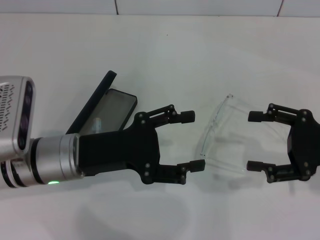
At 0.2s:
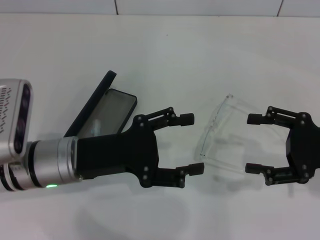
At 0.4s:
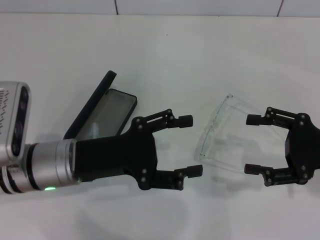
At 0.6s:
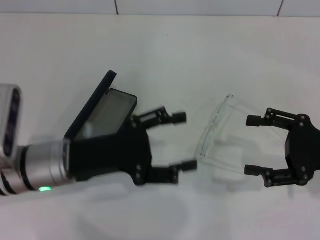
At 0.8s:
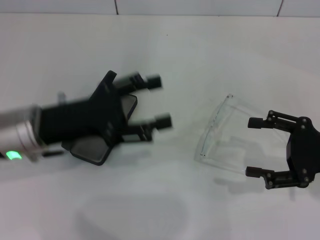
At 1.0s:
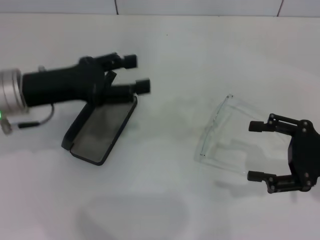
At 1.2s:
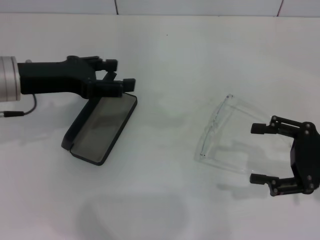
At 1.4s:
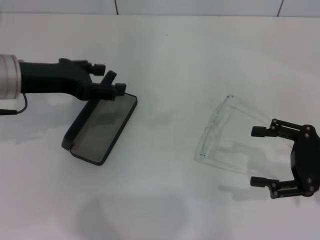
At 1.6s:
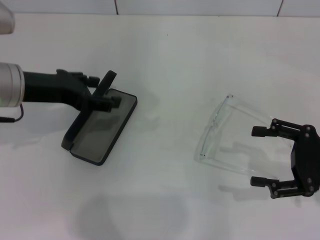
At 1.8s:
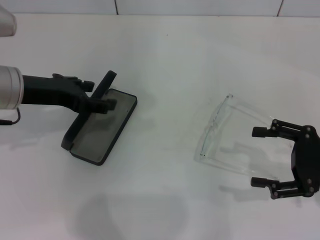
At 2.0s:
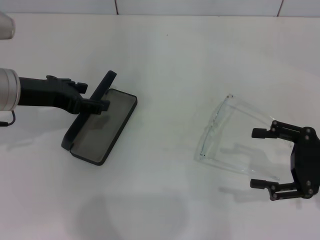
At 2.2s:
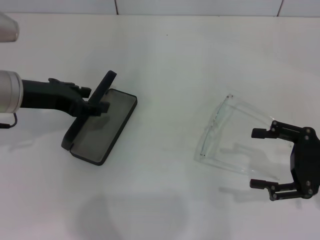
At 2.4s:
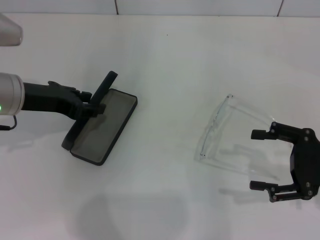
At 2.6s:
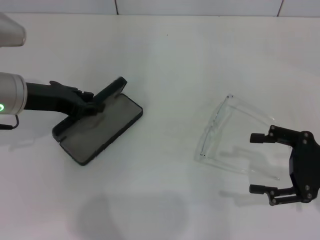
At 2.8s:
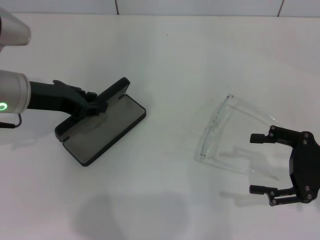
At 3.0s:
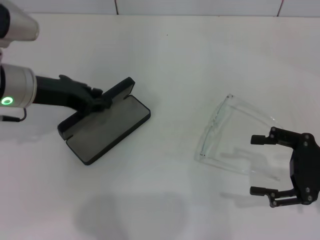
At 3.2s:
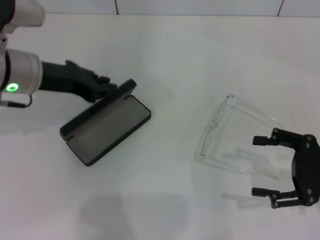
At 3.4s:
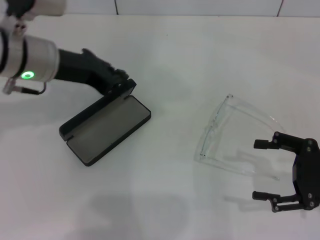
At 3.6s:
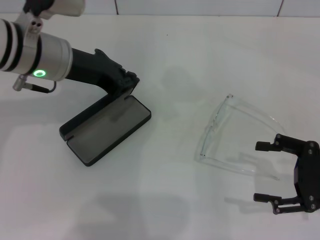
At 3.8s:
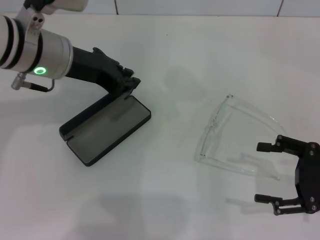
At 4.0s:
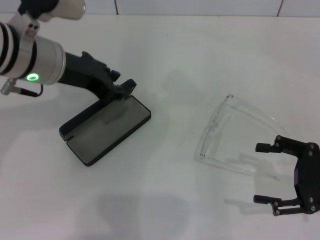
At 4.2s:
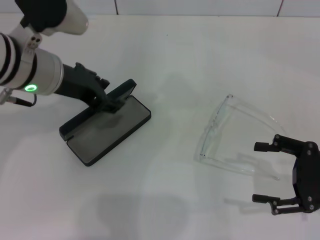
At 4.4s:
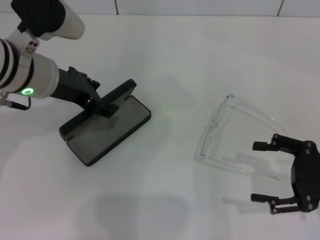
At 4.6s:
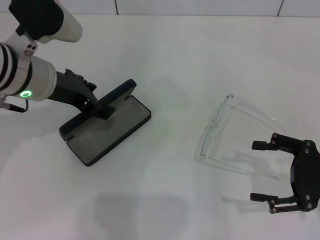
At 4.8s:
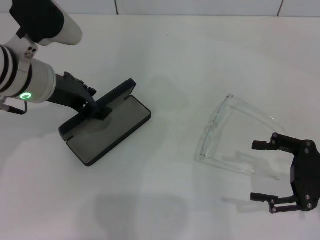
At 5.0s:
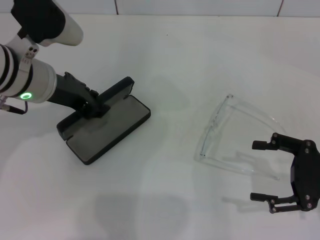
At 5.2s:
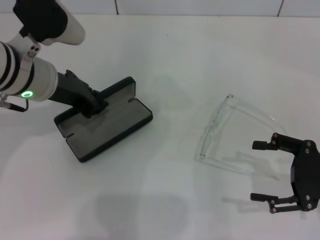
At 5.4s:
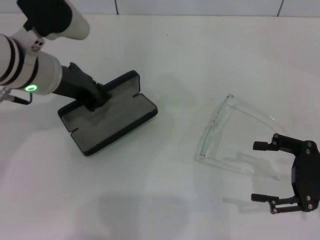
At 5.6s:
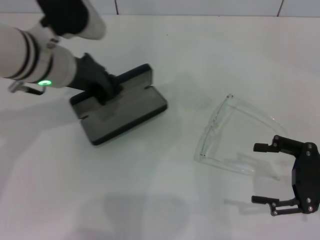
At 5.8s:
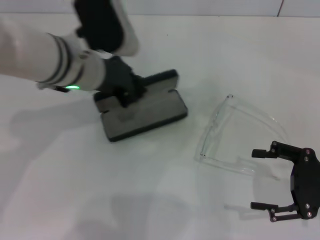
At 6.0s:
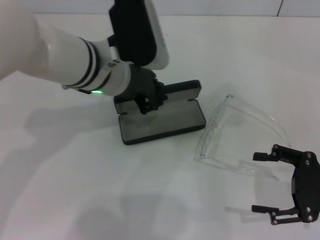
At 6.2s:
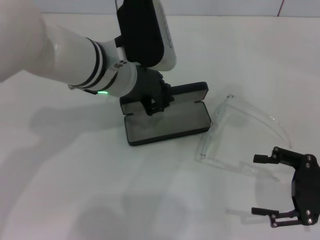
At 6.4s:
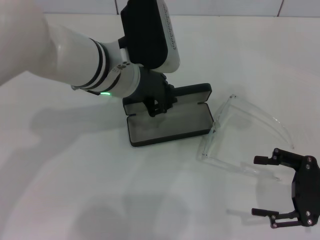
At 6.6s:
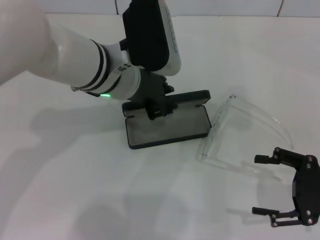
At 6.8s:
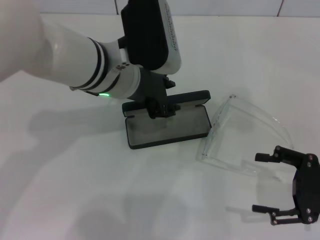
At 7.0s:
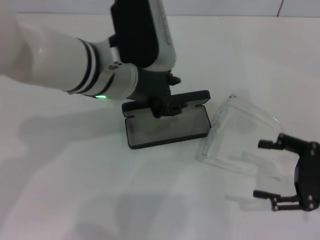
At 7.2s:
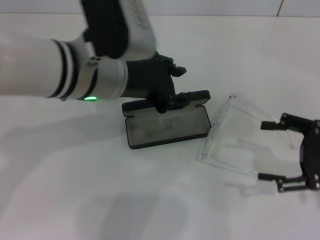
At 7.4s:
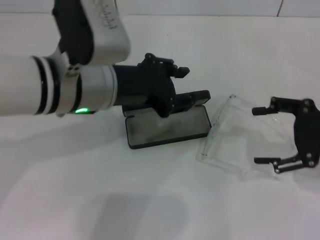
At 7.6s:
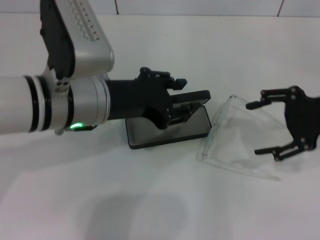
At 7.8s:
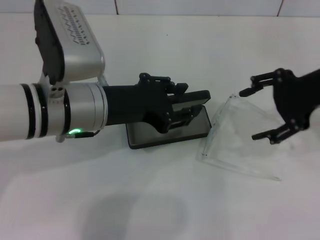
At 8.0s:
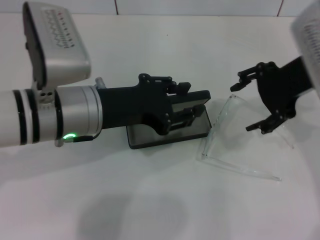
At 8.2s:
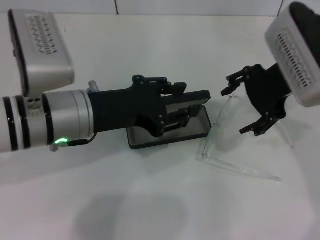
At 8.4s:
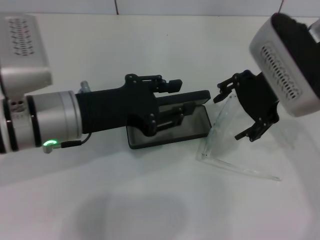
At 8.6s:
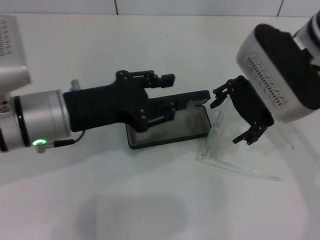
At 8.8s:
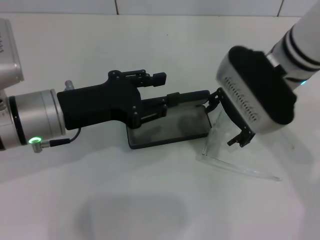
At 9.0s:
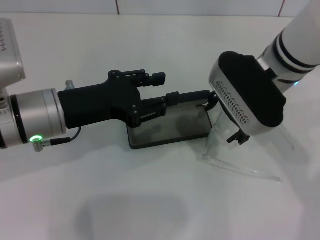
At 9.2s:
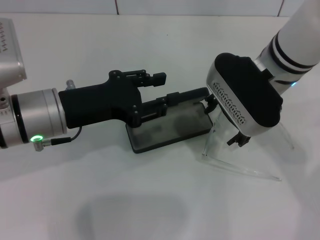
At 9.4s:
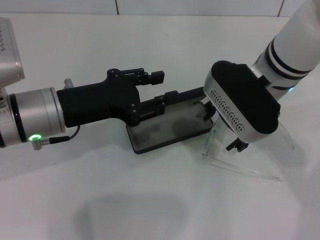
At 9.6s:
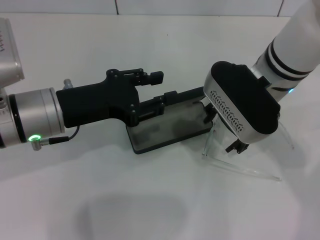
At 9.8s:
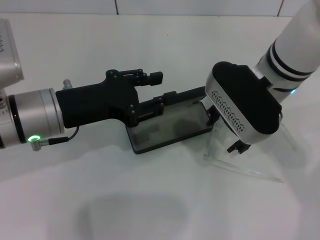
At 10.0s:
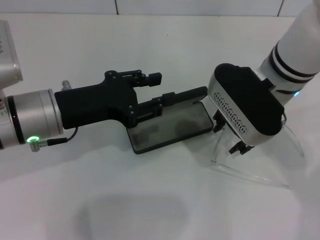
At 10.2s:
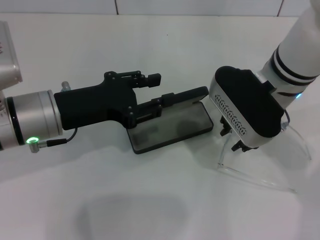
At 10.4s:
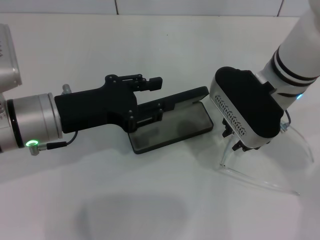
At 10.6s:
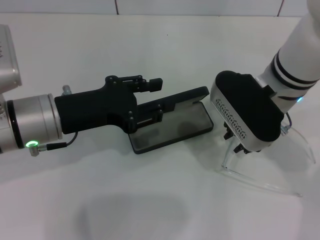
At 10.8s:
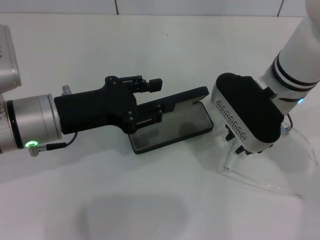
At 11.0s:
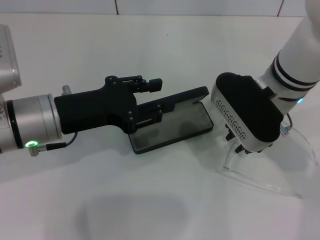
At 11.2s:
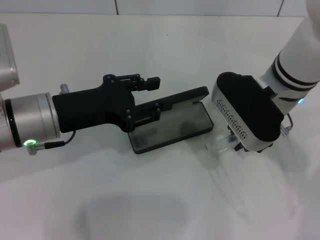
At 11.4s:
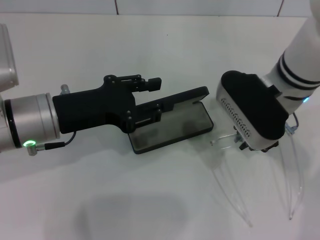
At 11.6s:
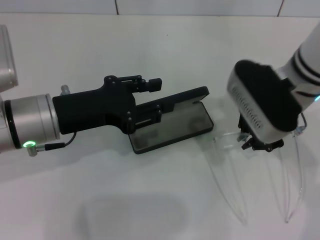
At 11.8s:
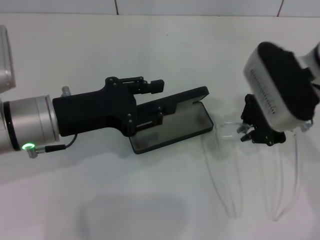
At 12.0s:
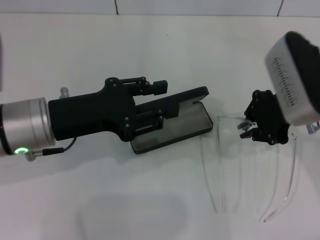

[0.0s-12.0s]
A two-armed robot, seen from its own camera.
Step, 0.0s to 5.2s: Grab the glasses case with your left hand.
Step, 5.4s to 6.8s: Place the glasses case in the center of the table with your left hand.
Step, 7.0s to 11.4s: Grab the eyeglass frame with your right hand.
0.0s to 1.6s: The left gripper goes roughly 10 cm upward, forward and to the left.
1.6s to 3.0s: The left gripper closes up.
3.0s to 4.4s: The left gripper moves approximately 5 cm, and opens up.
4.4s to 6.0s: The left gripper moves to the right, approximately 10 cm, and closes its fingers.
6.0s to 7.6s: The left gripper is displaced backward by some 5 cm, and opens, while the right gripper goes some 15 cm upward and forward.
7.6s to 9.0s: The left gripper travels to the left by about 5 cm, while the right gripper shifts roughly 15 cm to the left.
9.0s to 10.4s: The right gripper closes its fingers.
10.4s to 12.0s: The right gripper is displaced to the right by approximately 5 cm.

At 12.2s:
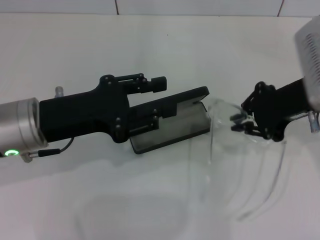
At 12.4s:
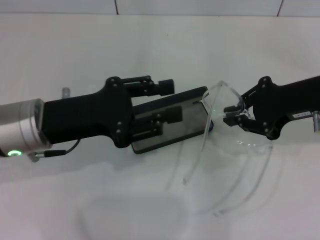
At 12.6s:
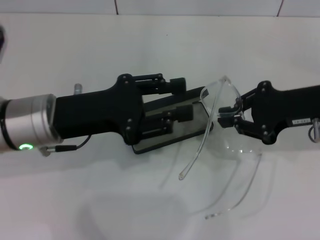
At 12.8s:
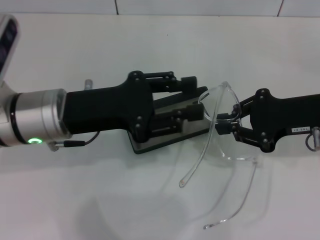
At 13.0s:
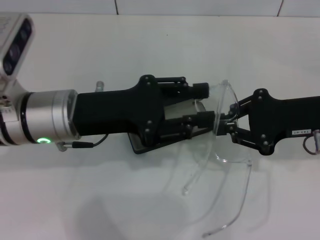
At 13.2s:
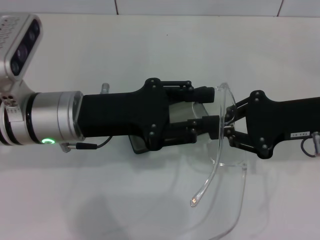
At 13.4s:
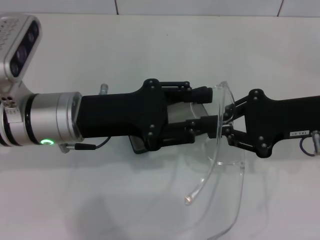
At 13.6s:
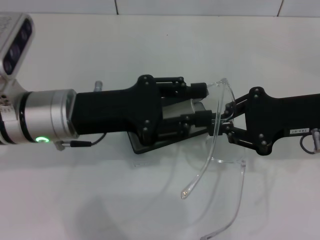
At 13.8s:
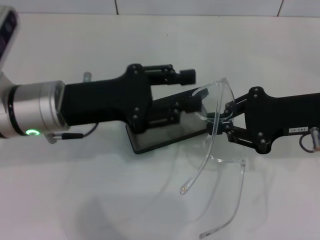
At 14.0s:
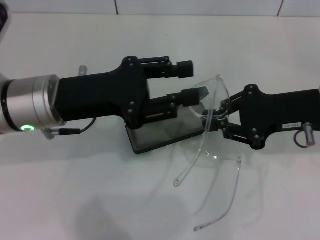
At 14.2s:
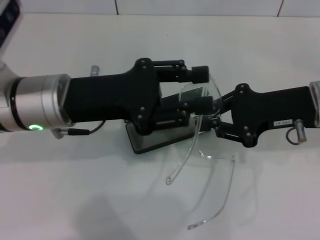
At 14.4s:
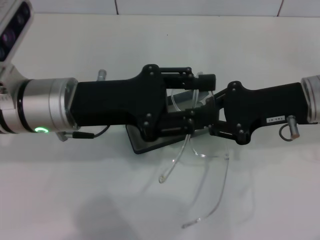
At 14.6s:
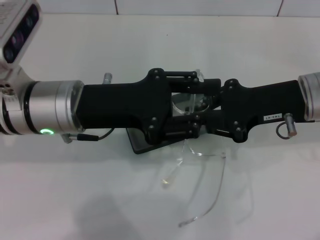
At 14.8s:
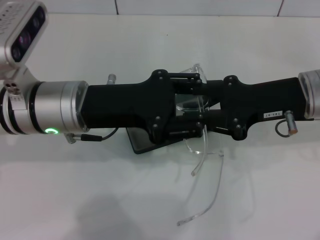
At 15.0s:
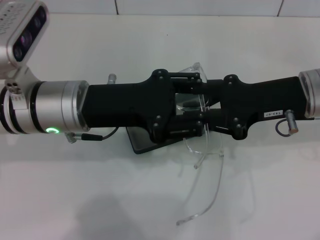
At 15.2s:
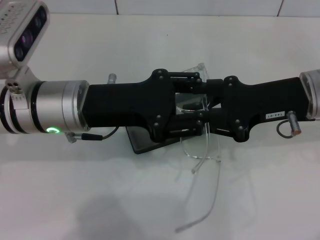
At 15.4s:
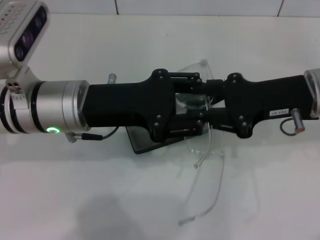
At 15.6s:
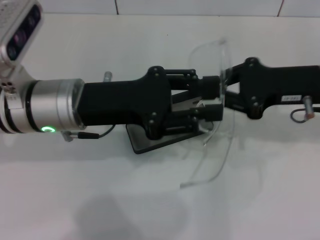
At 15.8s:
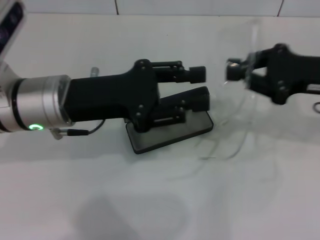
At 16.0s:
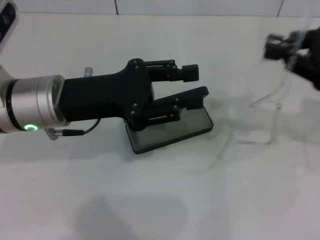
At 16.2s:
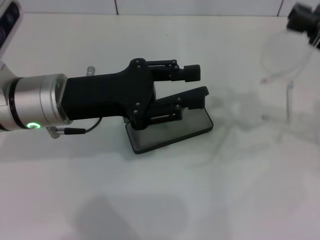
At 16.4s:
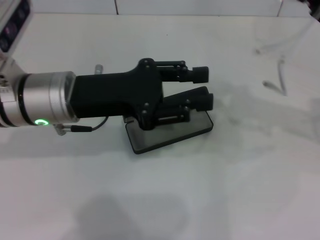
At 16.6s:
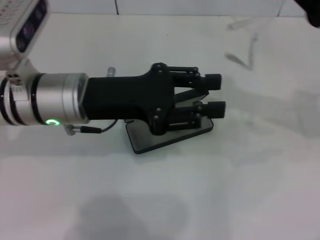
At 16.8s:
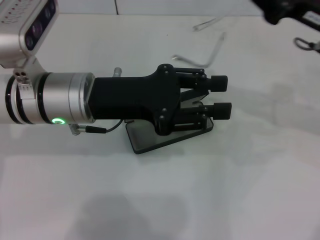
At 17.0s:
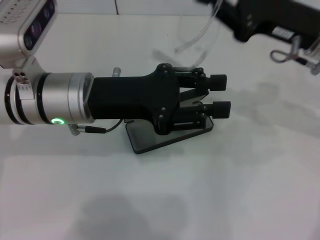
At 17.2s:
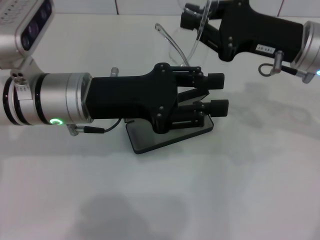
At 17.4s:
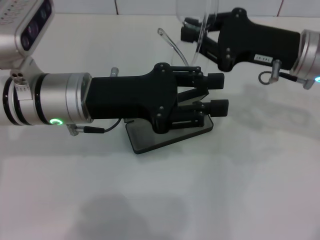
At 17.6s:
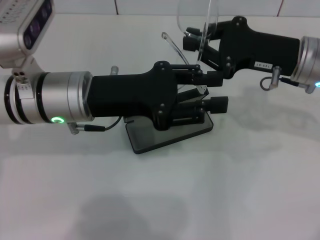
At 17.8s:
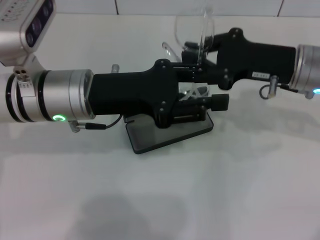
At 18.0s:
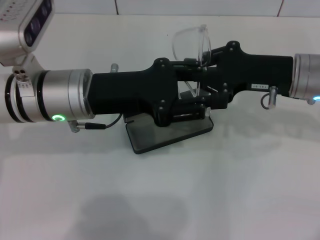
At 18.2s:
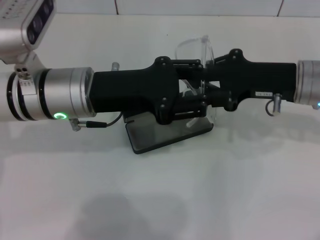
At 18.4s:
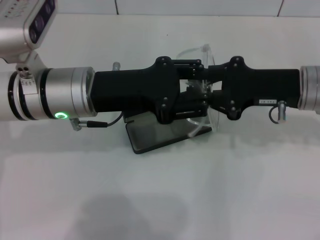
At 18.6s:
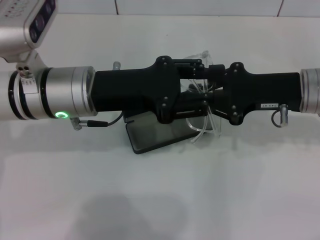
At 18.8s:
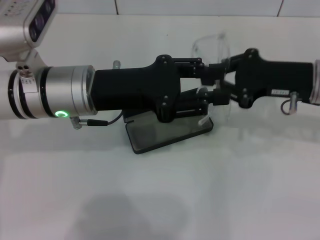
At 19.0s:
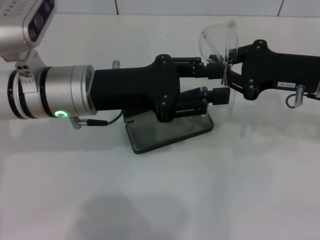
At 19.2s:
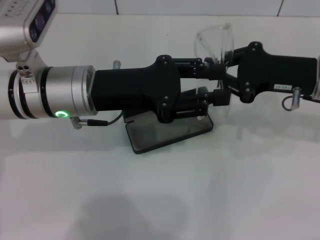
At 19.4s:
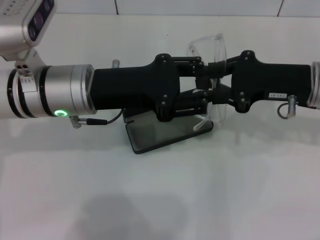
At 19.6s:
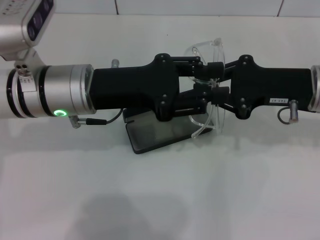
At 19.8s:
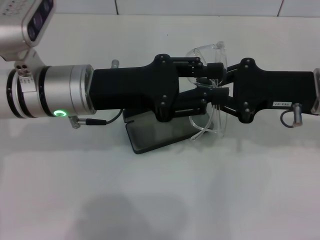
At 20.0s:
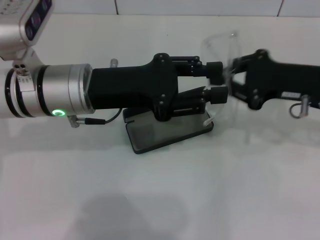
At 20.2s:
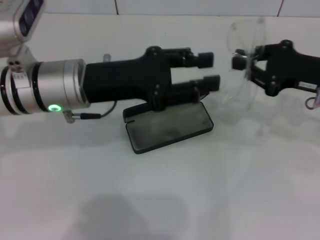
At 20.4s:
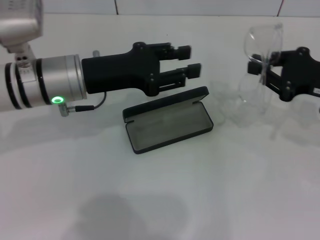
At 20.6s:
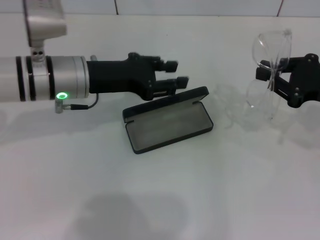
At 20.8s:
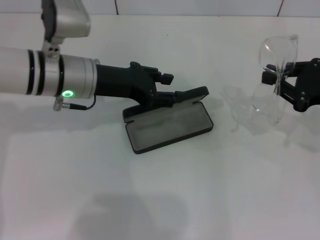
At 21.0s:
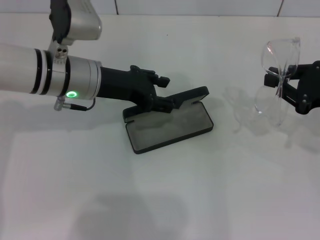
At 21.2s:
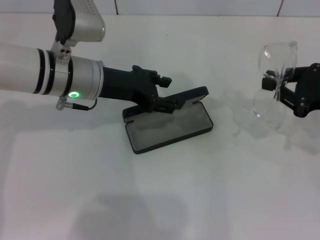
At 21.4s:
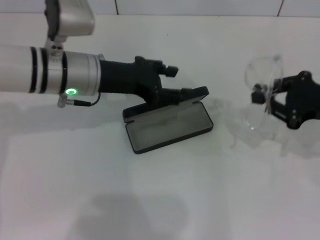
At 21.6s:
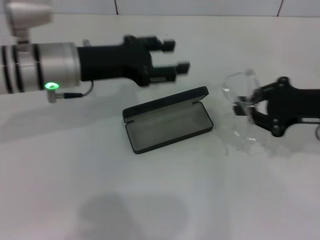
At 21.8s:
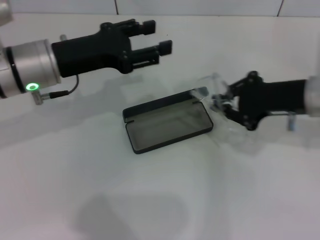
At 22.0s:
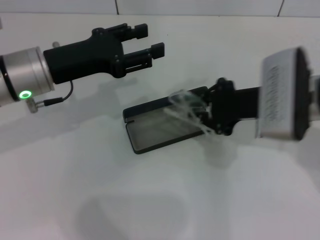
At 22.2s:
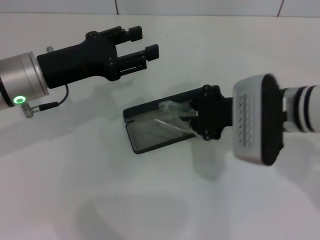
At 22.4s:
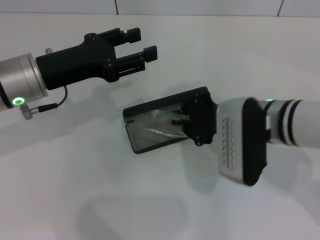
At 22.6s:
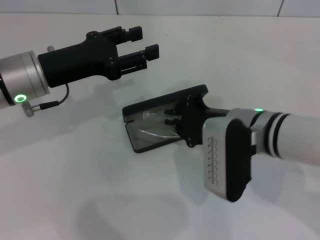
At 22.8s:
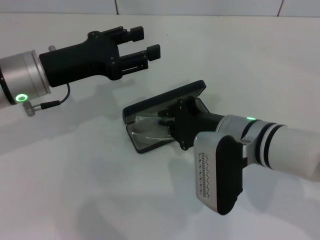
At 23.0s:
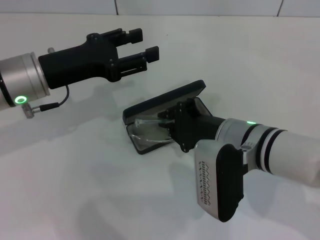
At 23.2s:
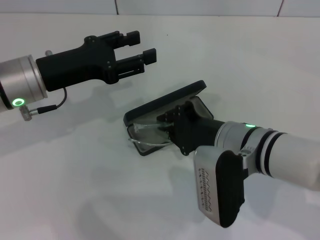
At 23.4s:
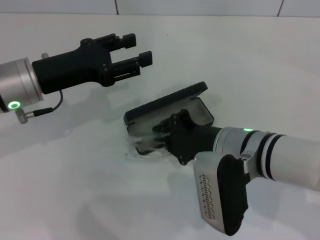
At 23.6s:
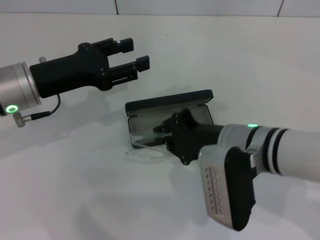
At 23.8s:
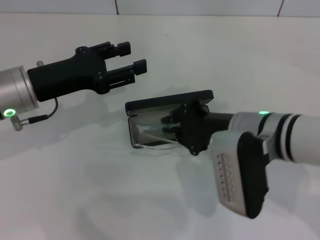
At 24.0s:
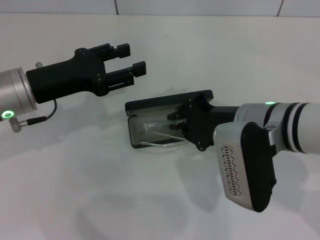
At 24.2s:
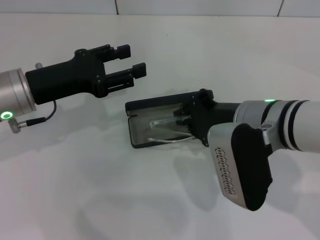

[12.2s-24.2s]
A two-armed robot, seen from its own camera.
Step, 12.2s to 18.6s: Fold the frame with your left hand.
12.2s to 13.8s: The right gripper shifts by roughly 5 cm.
15.2s to 16.6s: The right gripper shifts about 5 cm to the right.
16.6s to 18.2s: The right gripper goes about 10 cm downward and to the left.
18.2s to 19.8s: The grippers stay close to where they were, moving slightly.
19.8s to 21.2s: The left gripper is displaced forward by about 5 cm. The right gripper heads to the right, covering approximately 10 cm.
21.2s to 22.6s: The right gripper heads to the left, covering some 20 cm. Meanwhile the left gripper travels to the left by some 5 cm.
22.6s to 24.2s: There are only small adjustments of the grippers.
